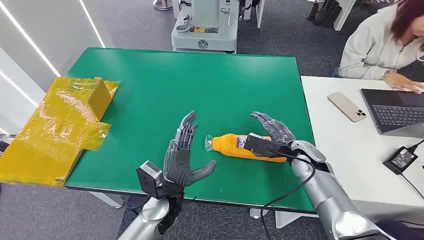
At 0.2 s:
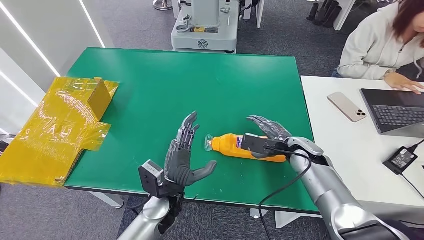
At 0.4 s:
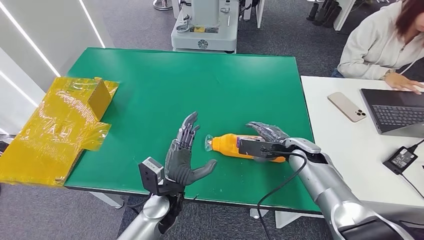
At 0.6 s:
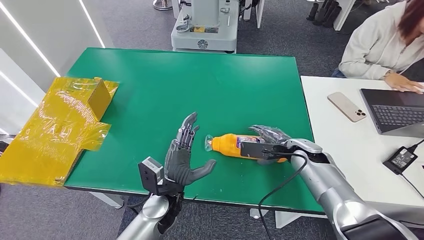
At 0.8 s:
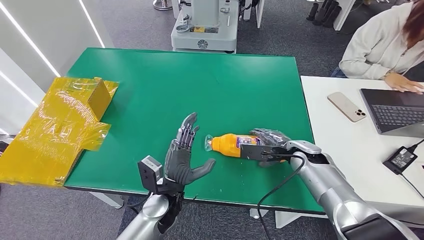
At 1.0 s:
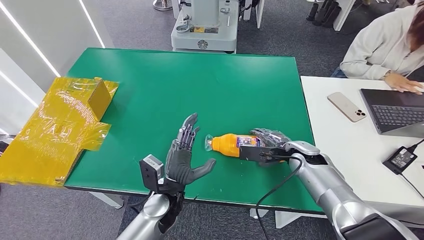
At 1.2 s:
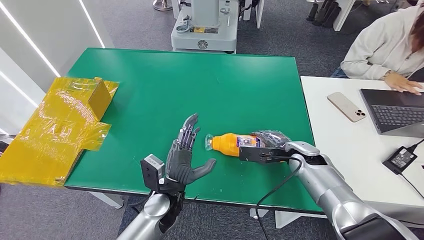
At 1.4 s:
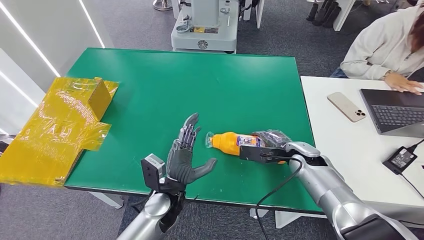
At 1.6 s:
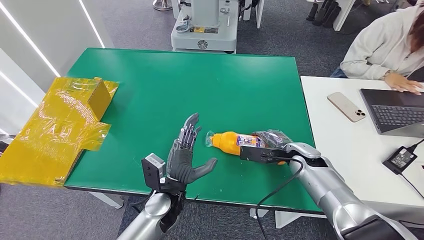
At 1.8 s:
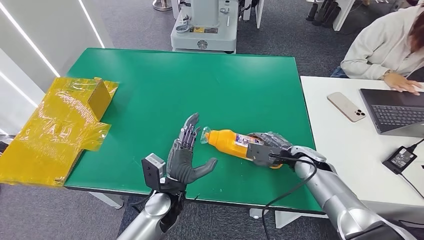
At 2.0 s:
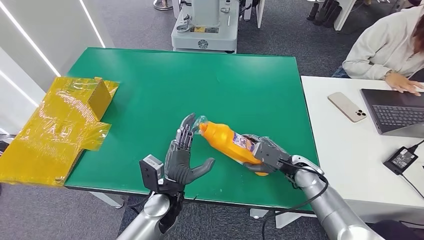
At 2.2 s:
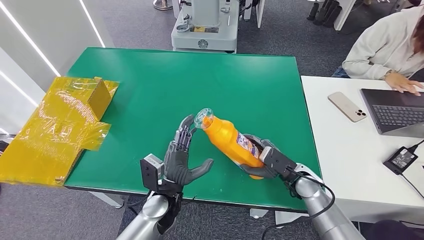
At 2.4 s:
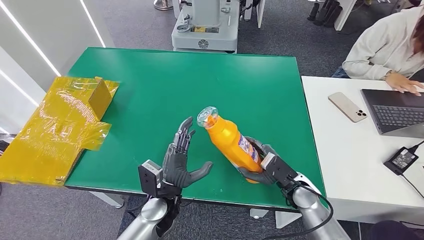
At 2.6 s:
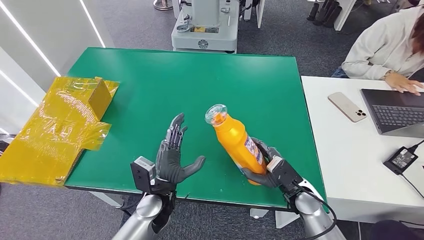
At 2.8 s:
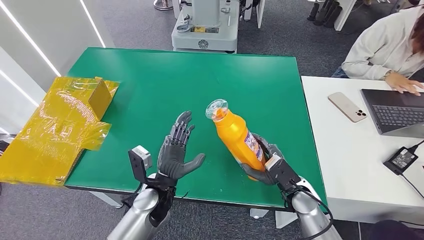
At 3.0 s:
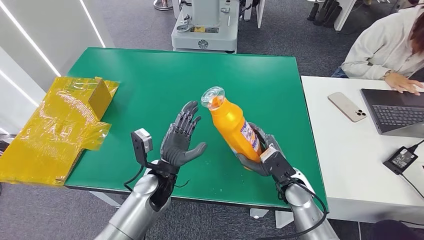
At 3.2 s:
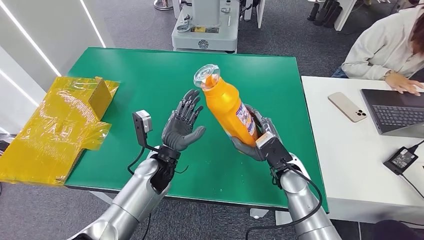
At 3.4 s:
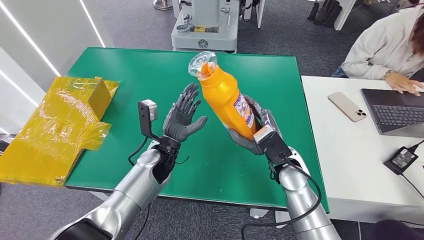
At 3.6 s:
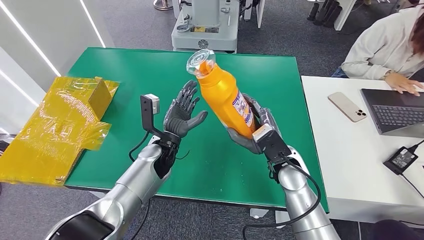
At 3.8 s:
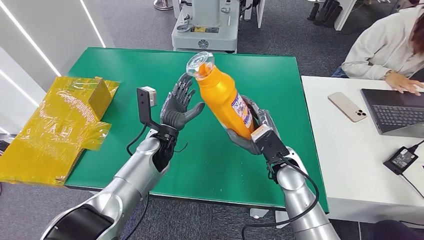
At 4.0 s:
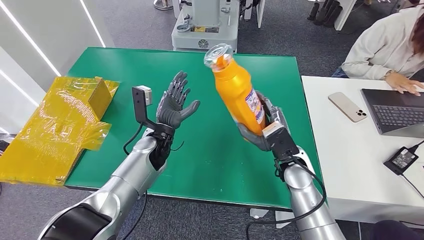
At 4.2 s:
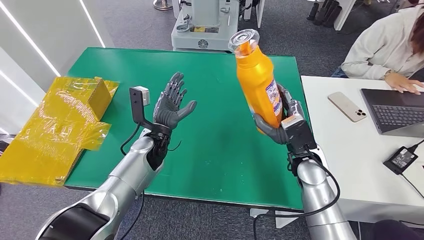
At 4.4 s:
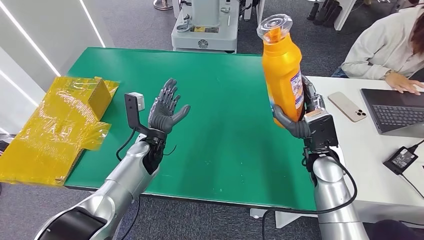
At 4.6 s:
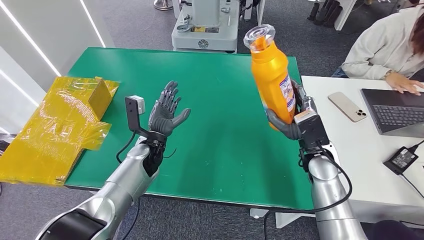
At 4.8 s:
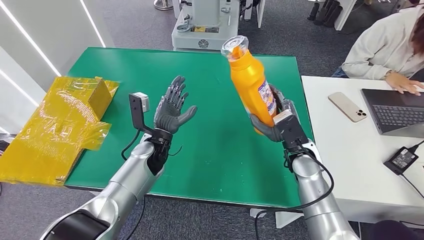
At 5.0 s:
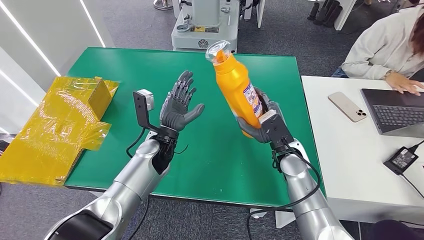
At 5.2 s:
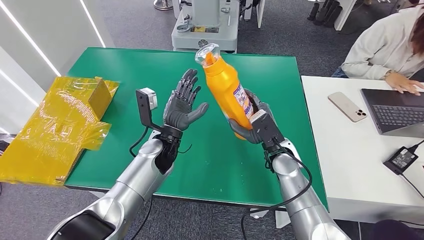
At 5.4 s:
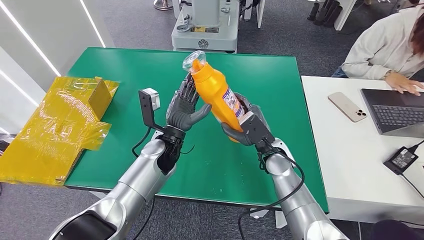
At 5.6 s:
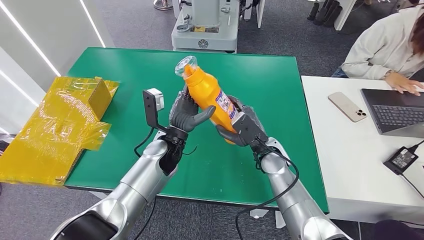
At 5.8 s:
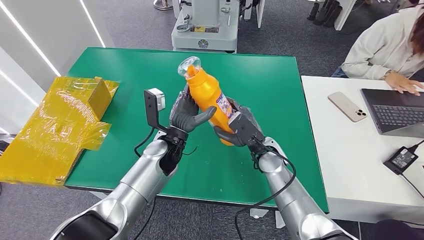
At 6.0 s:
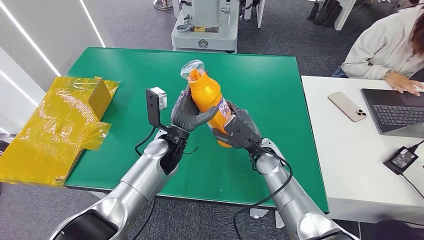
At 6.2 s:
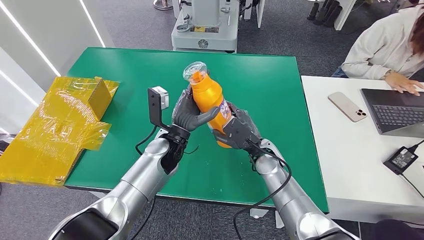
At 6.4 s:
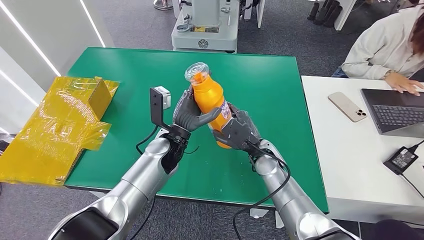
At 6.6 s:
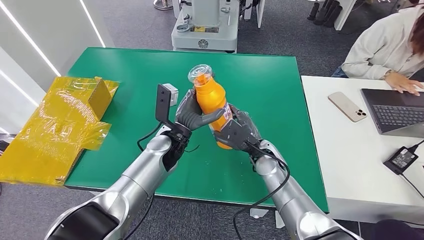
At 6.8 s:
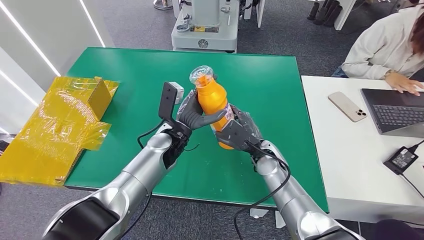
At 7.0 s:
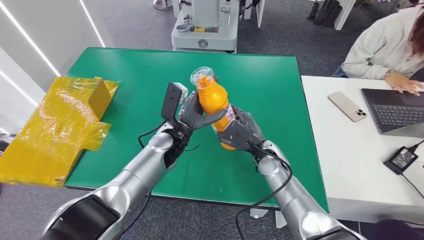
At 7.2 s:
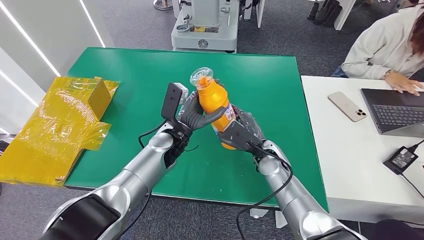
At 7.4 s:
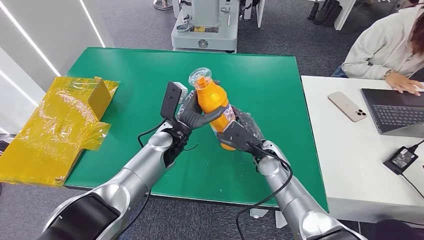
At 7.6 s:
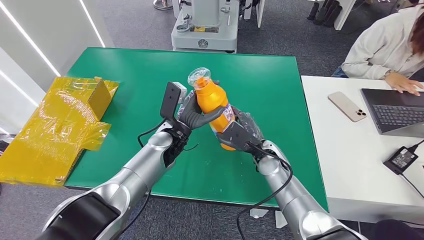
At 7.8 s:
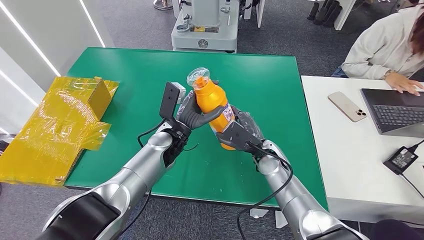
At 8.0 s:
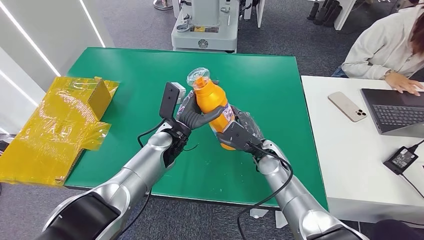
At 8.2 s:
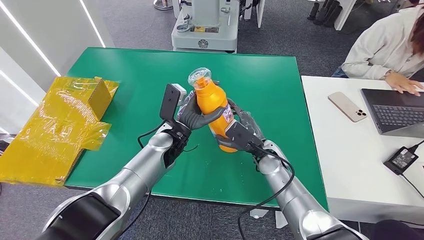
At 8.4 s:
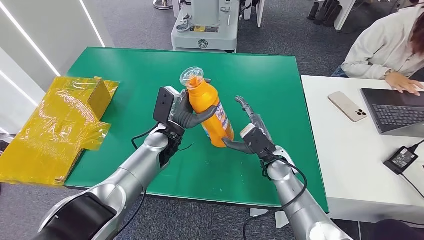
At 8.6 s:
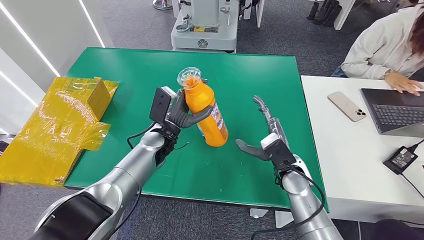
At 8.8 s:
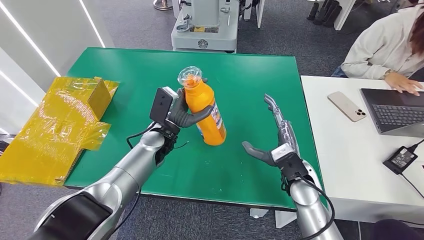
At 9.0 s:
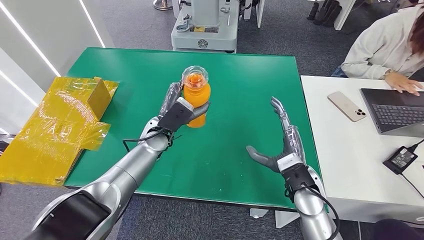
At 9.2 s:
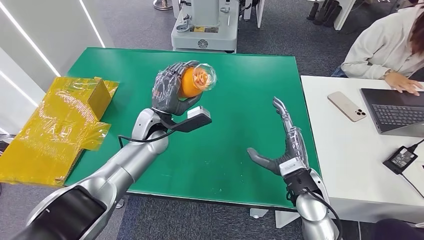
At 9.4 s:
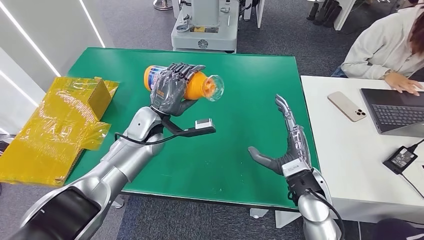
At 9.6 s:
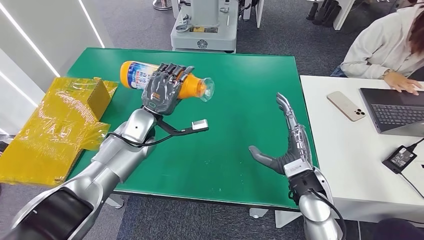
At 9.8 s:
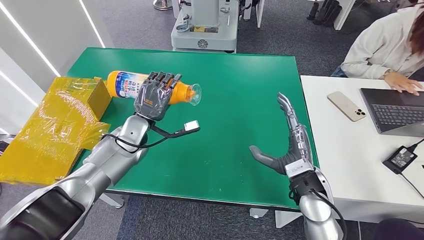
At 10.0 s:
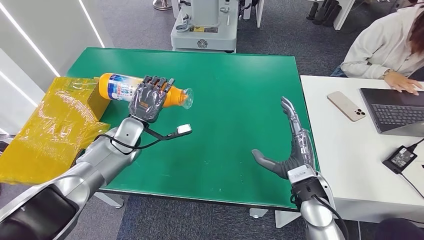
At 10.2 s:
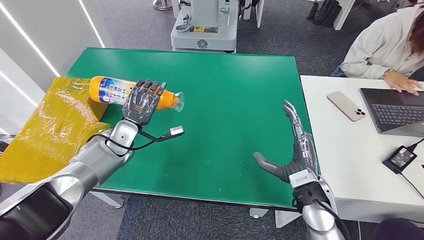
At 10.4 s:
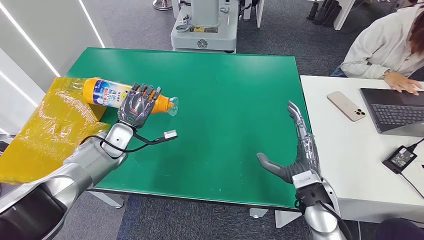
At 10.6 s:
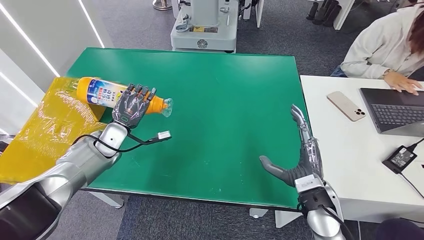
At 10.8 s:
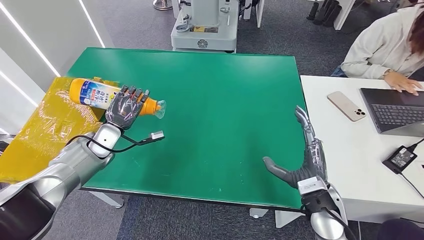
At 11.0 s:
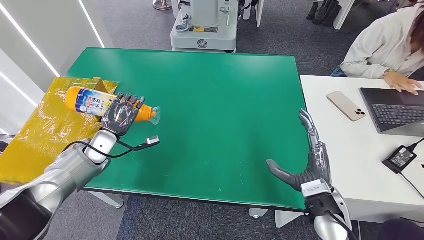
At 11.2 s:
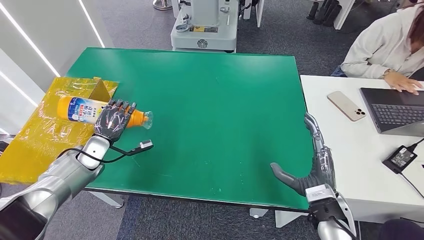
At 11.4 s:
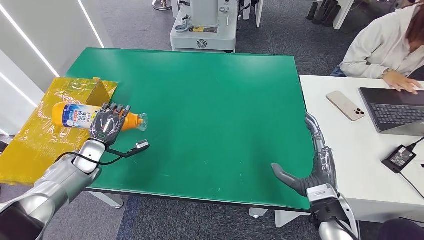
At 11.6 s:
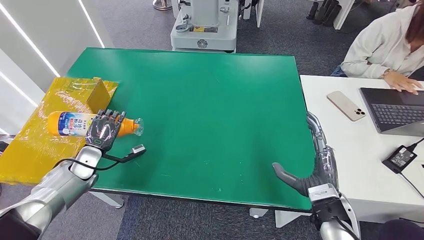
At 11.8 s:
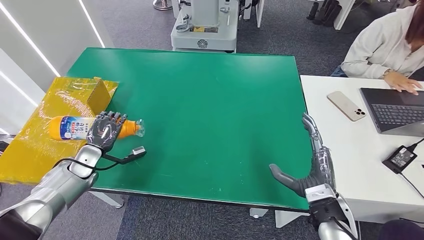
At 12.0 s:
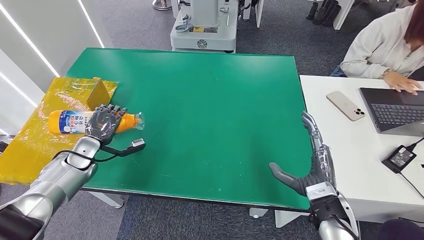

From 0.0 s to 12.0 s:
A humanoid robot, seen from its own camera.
Step, from 0.0 s to 3.4 s: Pick up the bottle from the table.
From 1.6 s to 3.0 s: The left hand moves roughly 5 cm. Meanwhile the right hand heads to the left and backward, covering some 10 cm.
From 6.0 s to 7.6 s: The hands make only small movements.
From 7.6 s to 9.0 s: The right hand moves backward, approximately 10 cm.
From 10.4 s to 12.0 s: The left hand heads to the left, covering approximately 10 cm.

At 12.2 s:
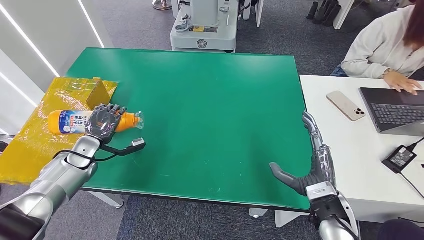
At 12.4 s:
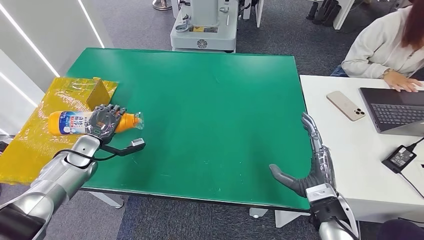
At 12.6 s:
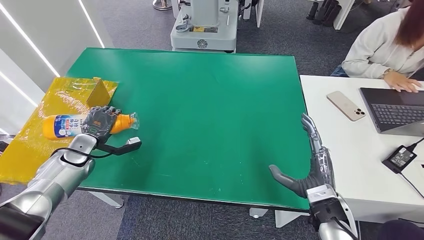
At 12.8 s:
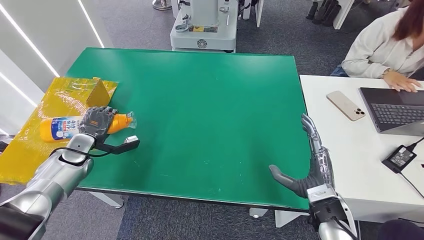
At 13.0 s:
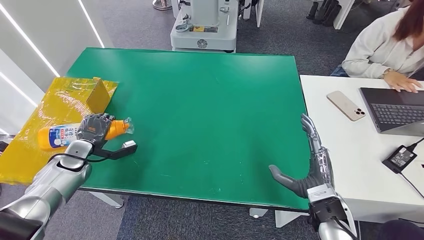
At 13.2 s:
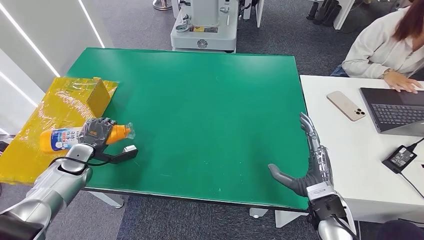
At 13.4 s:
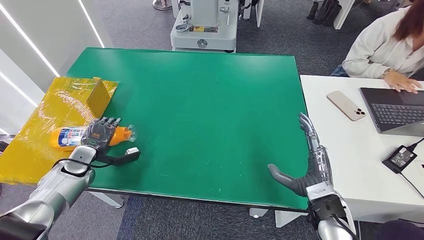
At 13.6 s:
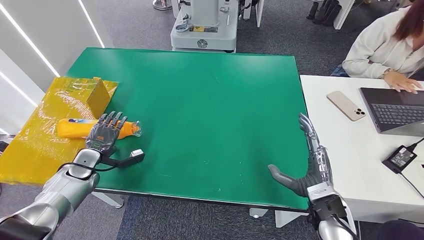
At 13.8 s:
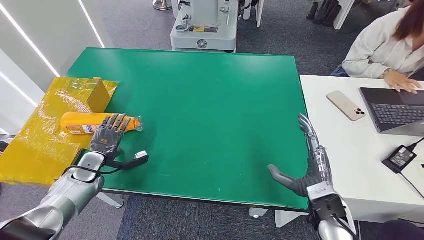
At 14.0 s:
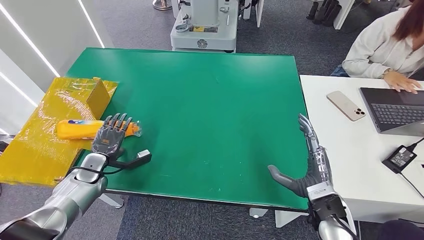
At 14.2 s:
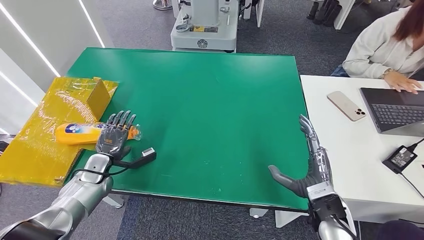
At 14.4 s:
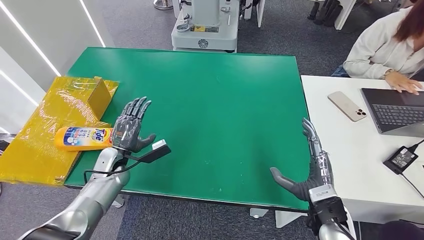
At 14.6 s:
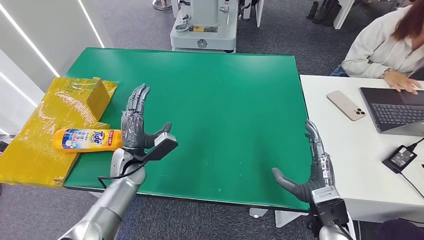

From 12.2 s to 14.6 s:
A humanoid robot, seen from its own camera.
Step, from 12.2 s to 14.4 s: Turn the bottle to the front side.
From 12.2 s to 13.4 s: The hands make only small movements.
From 13.4 s to 14.6 s: The left hand shifts some 20 cm to the right.
